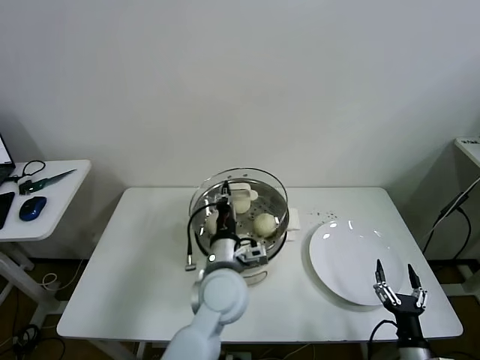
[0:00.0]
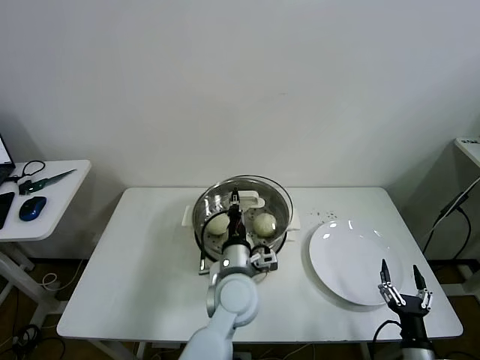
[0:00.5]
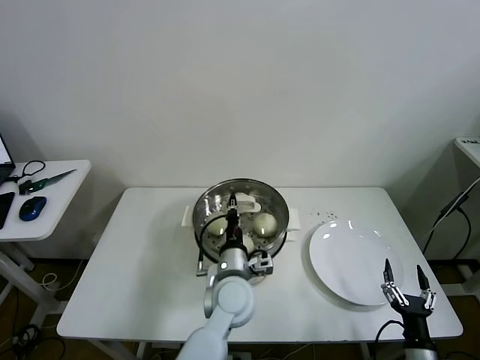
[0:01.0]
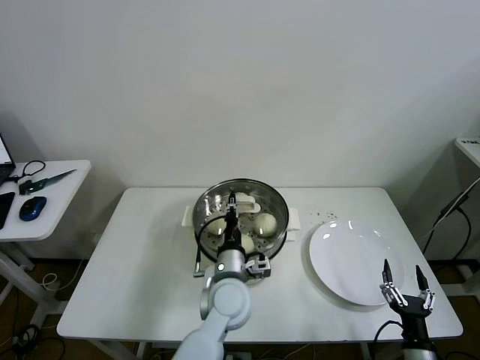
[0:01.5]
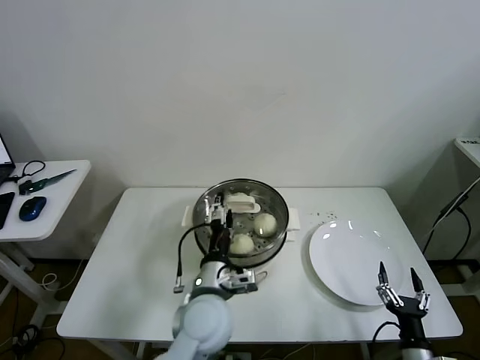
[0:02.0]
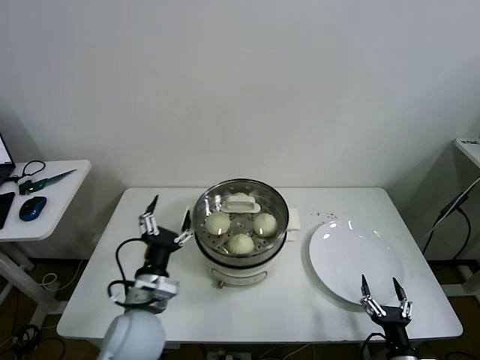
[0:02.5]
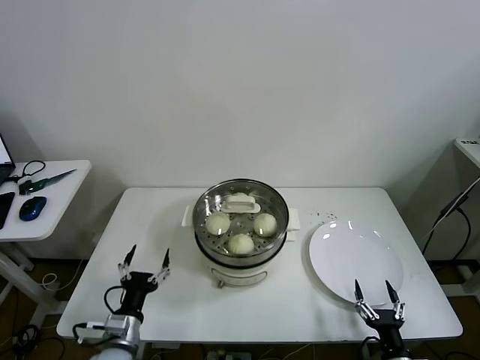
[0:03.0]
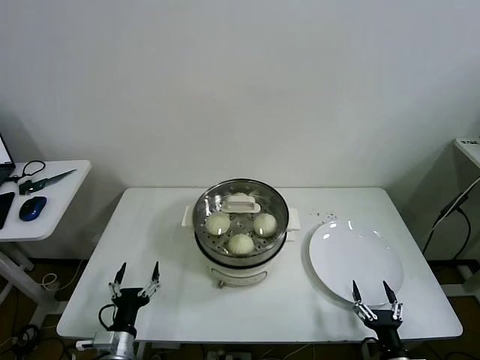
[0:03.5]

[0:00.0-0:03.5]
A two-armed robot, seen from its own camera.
Task of the whole recording: take steamed baozi put them in steamer then cover it.
0:00.0 to 0:02.0: The left gripper opens up.
0:02.0 to 0:03.5: The left gripper shifts roughly 30 cm to the left, downward and backward.

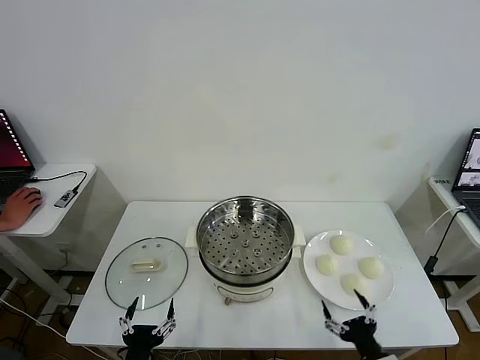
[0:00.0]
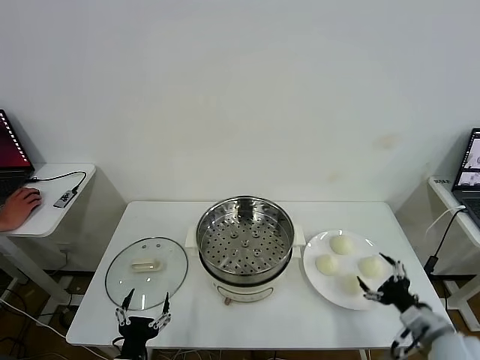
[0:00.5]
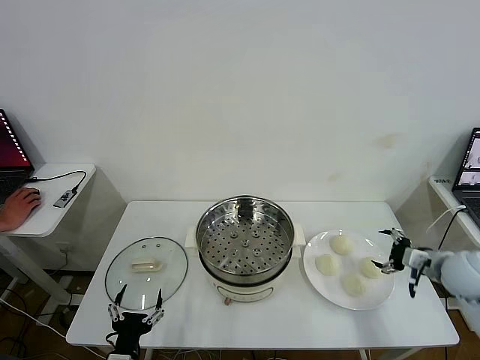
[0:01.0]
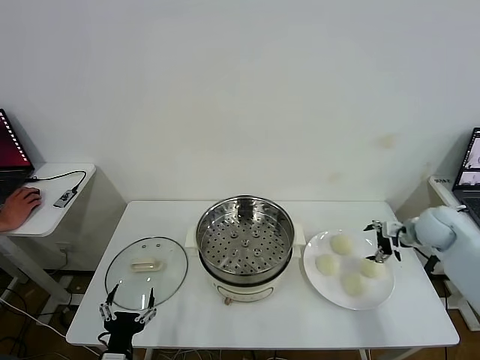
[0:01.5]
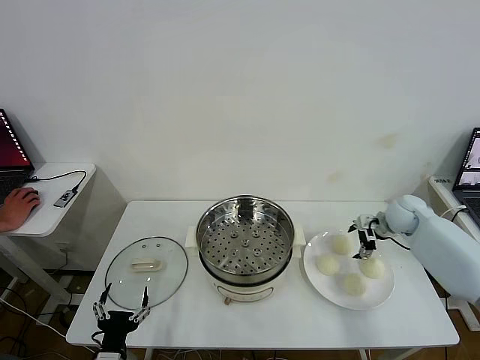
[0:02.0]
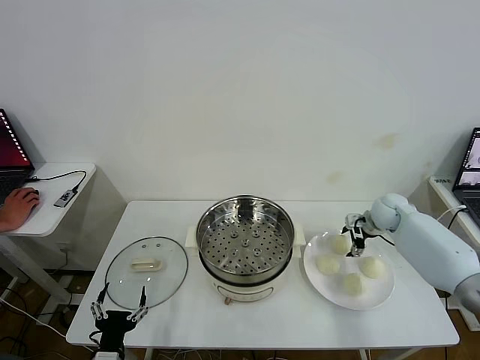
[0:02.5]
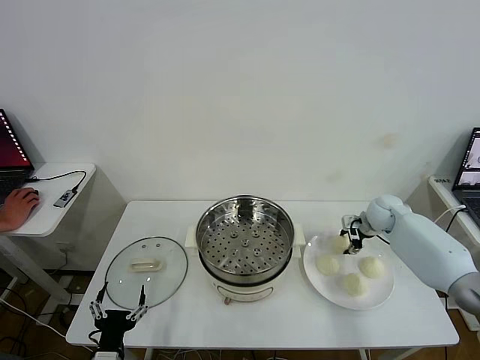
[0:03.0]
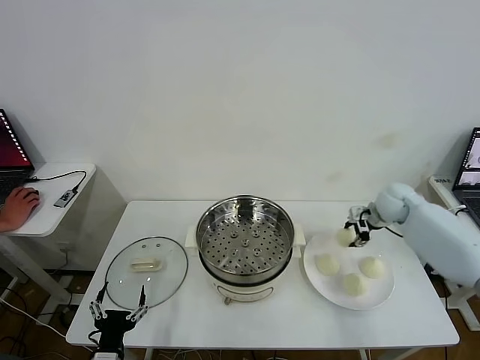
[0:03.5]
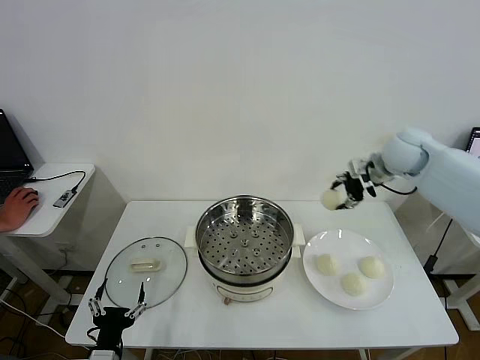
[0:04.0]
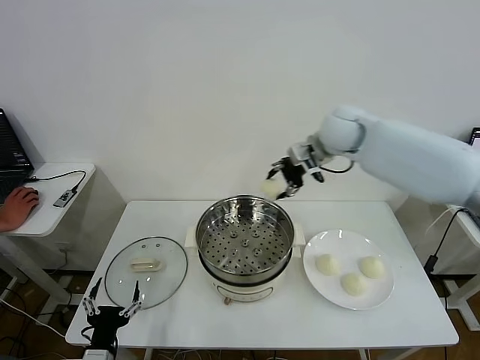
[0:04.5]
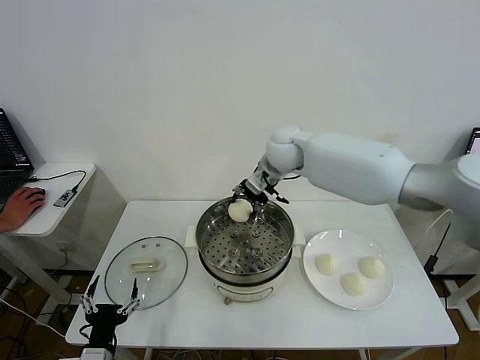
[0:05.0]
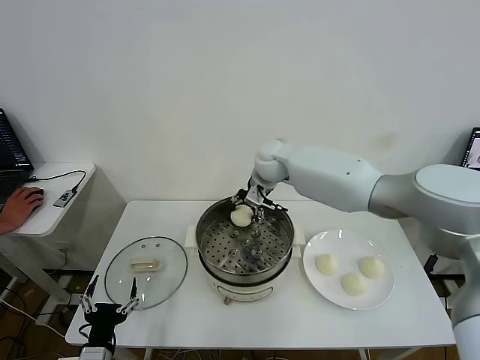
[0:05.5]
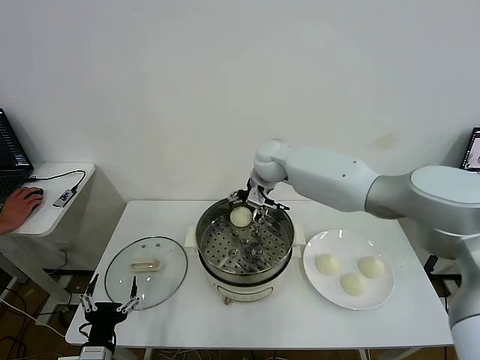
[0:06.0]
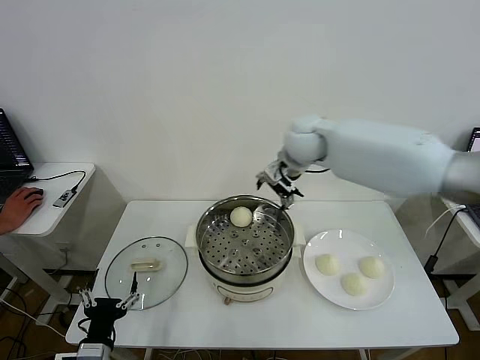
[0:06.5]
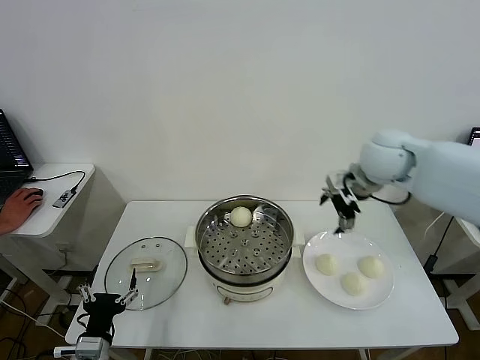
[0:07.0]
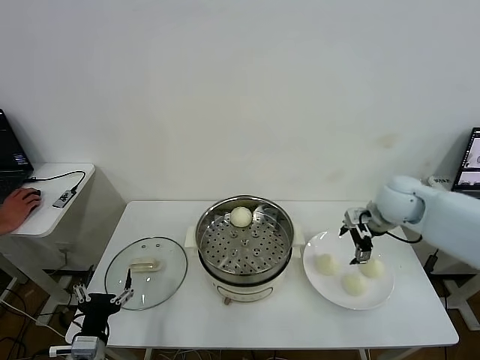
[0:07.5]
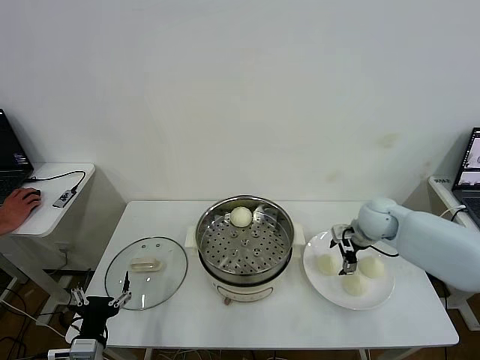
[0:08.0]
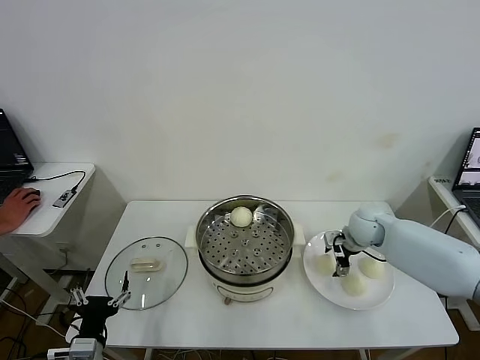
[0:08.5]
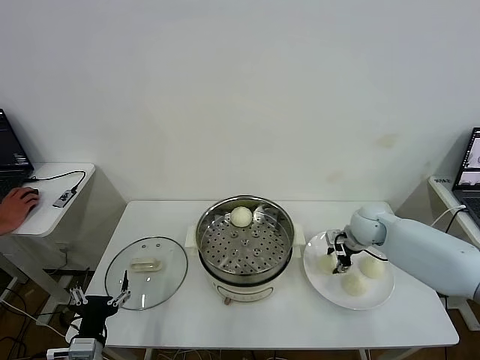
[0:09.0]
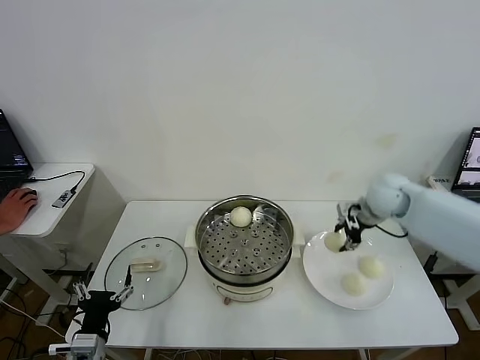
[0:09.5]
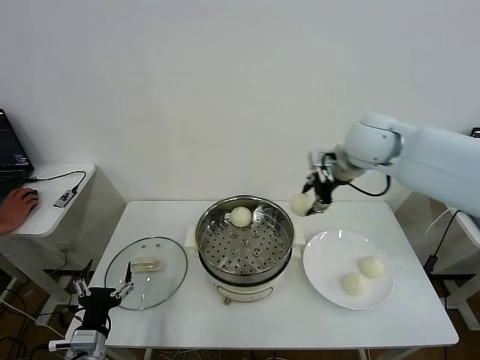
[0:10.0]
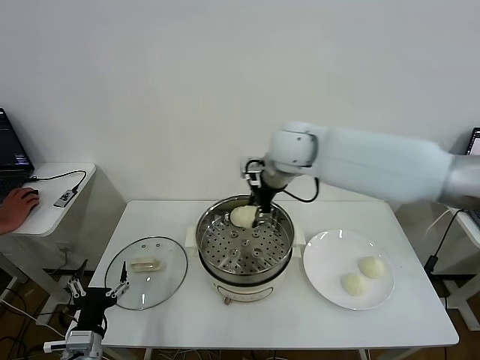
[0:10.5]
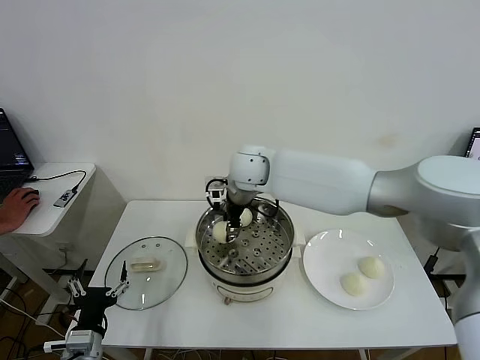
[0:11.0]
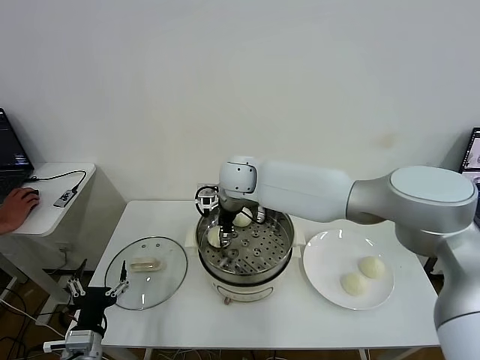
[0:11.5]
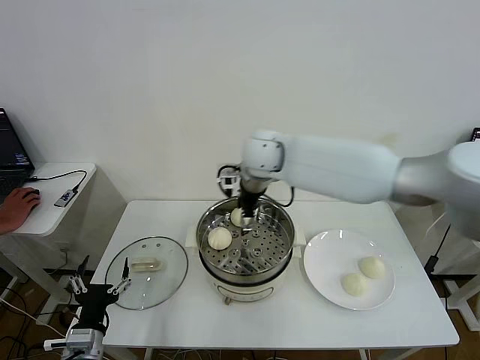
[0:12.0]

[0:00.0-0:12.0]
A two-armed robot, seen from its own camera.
Task of the whole recording: take steamed baozi put them in steamer then cover it.
Step, 0:00.0 to 0:02.5: Grasp the baozi in the plate with right gripper.
Step, 0:03.0 to 0:06.0: Place the baozi on the steamer with right gripper.
Step, 0:06.5 to 0:08.5: Grasp the baozi in the plate with right gripper.
Step, 0:09.0 to 0:11.5: Place the baozi on the steamer with right gripper.
0:02.0 to 0:04.0: The right gripper goes some 25 cm upward and to the left, and closes up.
0:04.0 to 0:06.0: The right gripper is displaced to the left by about 25 cm, and opens its fingers.
0:06.0 to 0:08.0: The right gripper moves to the right and downward, some 25 cm.
0:08.0 to 0:10.0: The right gripper goes approximately 25 cm upward and to the left, and closes.
0:10.0 to 0:12.0: The right gripper goes some 15 cm to the left, and opens up.

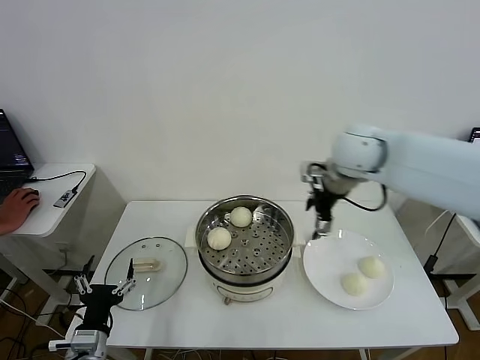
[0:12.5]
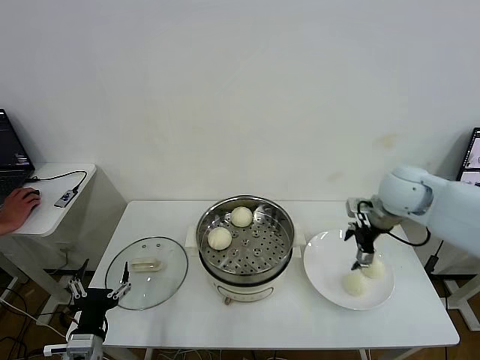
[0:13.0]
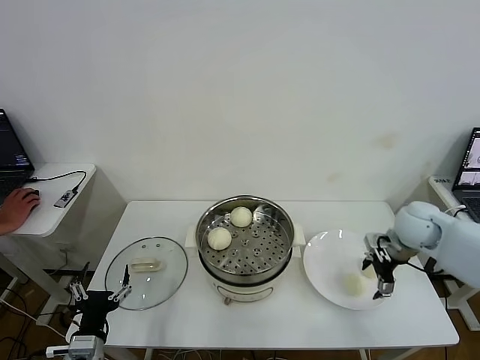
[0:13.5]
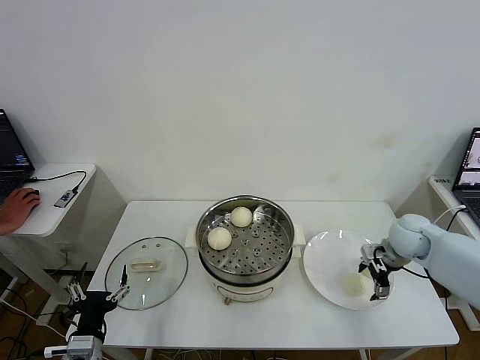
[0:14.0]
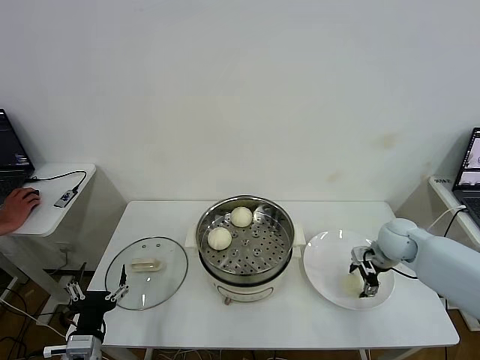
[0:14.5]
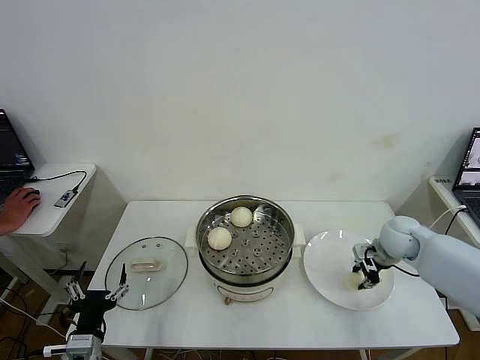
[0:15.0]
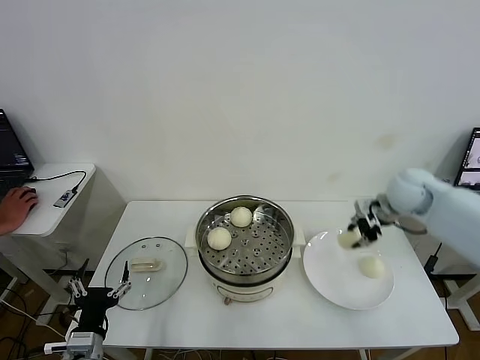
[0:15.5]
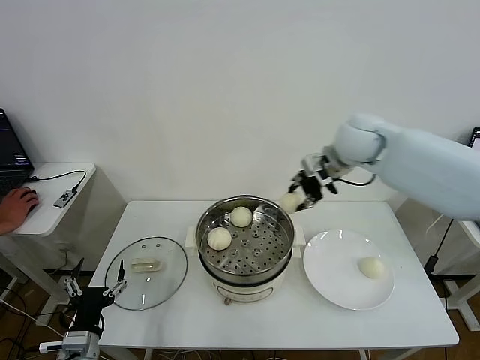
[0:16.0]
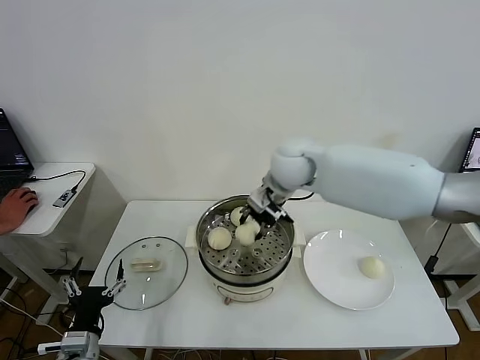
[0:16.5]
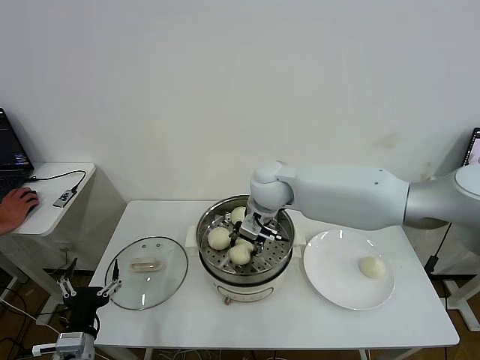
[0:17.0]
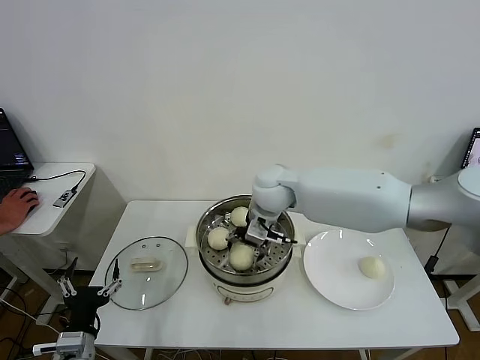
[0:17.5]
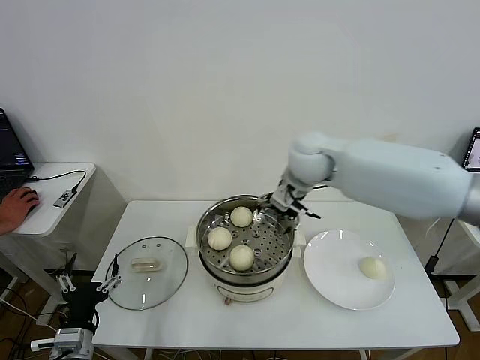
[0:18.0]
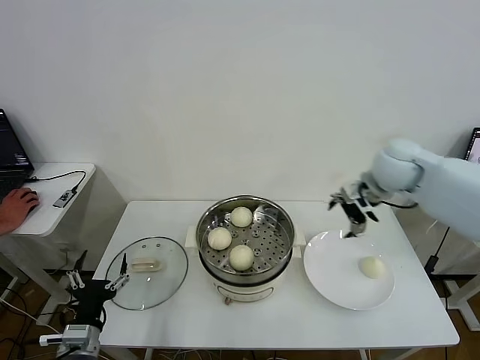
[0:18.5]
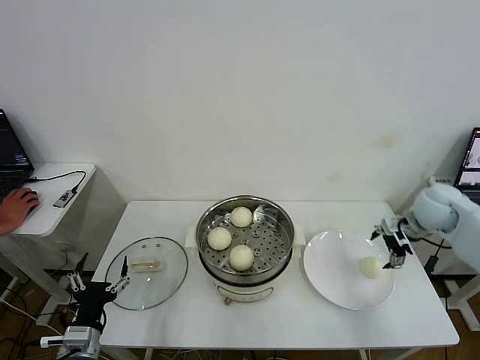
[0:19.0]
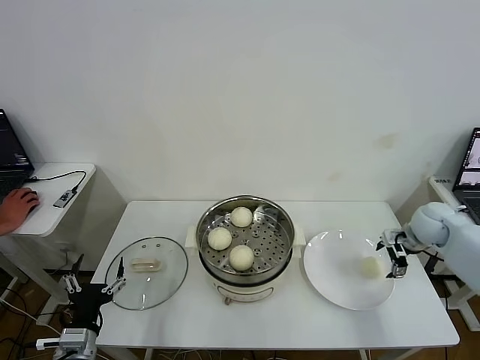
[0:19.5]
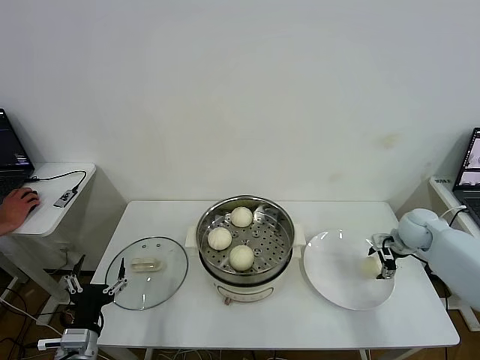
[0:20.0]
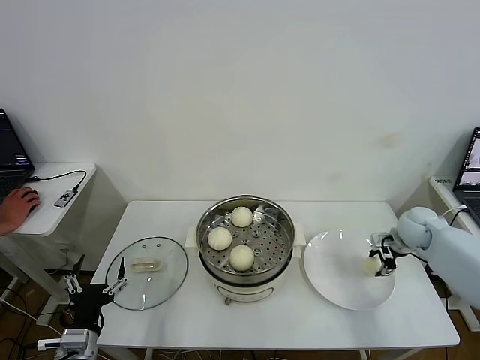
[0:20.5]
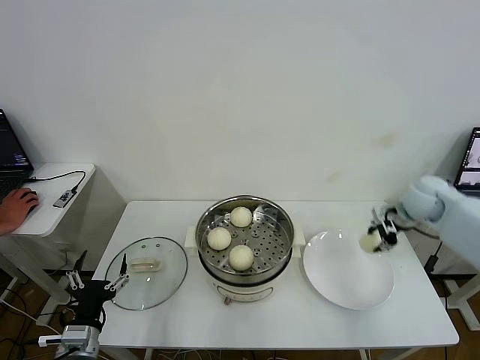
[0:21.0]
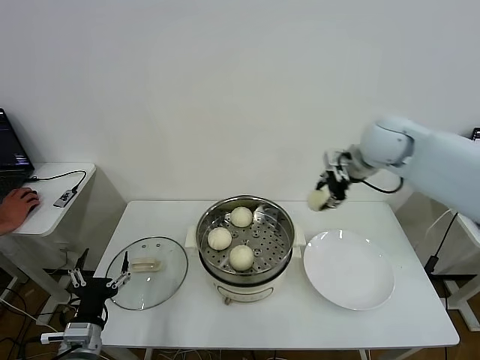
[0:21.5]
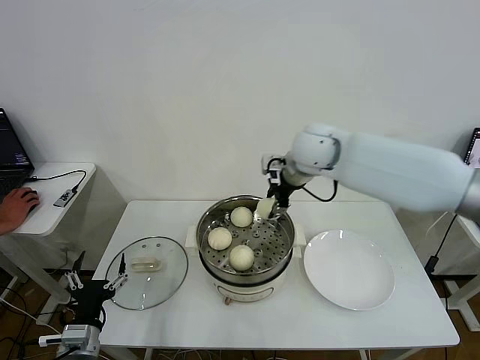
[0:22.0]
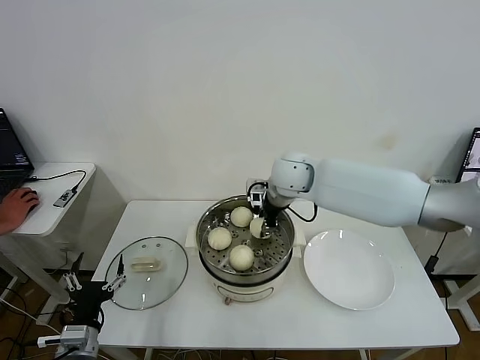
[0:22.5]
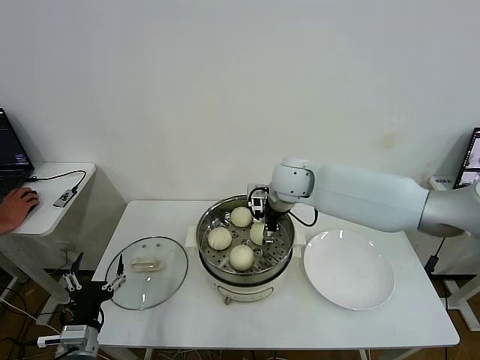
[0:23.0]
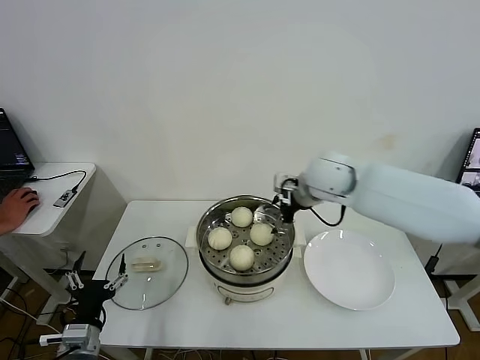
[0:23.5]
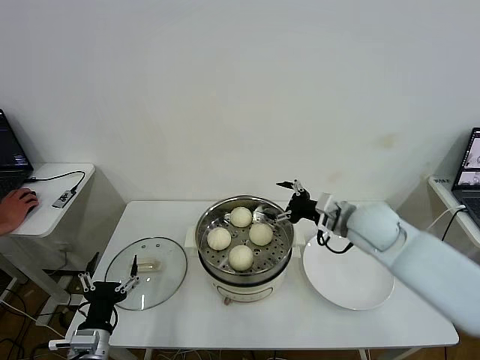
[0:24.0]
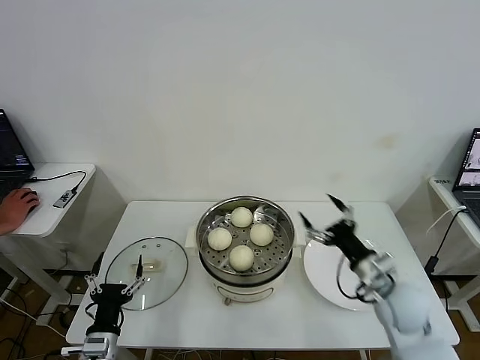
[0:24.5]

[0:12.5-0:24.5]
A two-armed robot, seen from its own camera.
Task of the whole recording: take steamed baozi put them in steamer then cover it.
Step, 0:12.5 to 0:14.5: Grasp the baozi in the plate with right gripper.
Step, 0:15.0 to 0:17.5: Place the baozi on the steamer with right gripper.
Step, 0:18.0 to 0:20.0: Grasp the baozi in the plate with right gripper.
Step, 0:20.5 to 0:23.0: Place the baozi on the steamer with right gripper.
0:12.5 to 0:14.5: The right gripper moves downward and to the right, some 25 cm.
0:14.5 to 0:16.5: The right gripper shifts approximately 35 cm to the left and upward, and closes its fingers.
0:16.5 to 0:18.5: The right gripper goes some 25 cm to the right, and opens up.
0:18.5 to 0:20.5: The right gripper shifts some 20 cm downward and to the right, and closes its fingers.
0:20.5 to 0:22.5: The right gripper goes some 35 cm to the left and upward.
0:22.5 to 0:24.5: The right gripper heads backward, to the right and downward, covering approximately 35 cm, and opens up.
